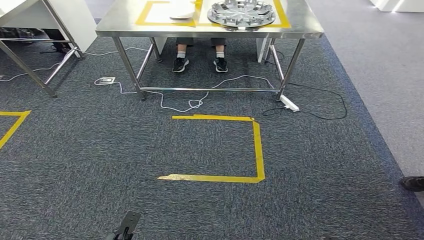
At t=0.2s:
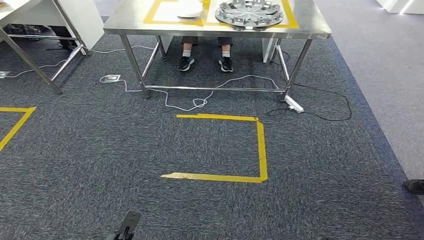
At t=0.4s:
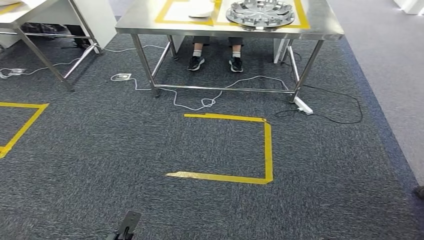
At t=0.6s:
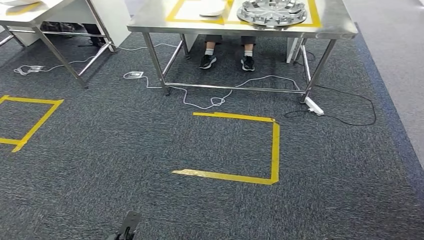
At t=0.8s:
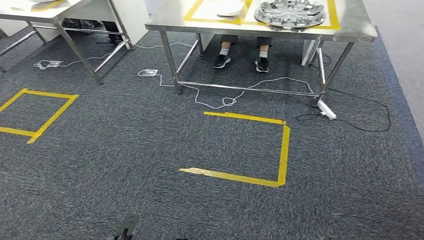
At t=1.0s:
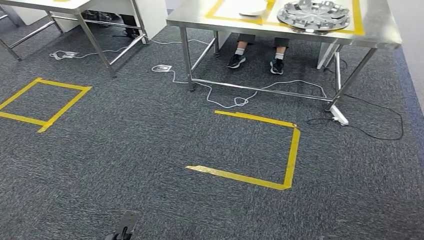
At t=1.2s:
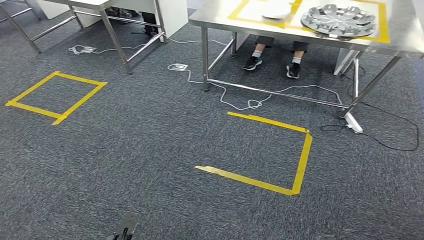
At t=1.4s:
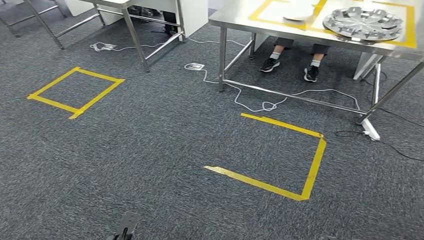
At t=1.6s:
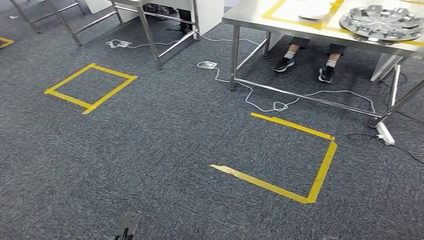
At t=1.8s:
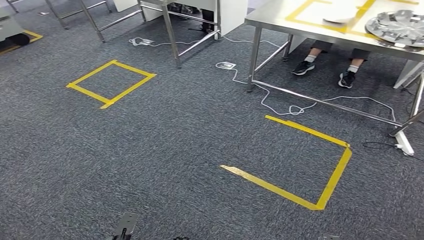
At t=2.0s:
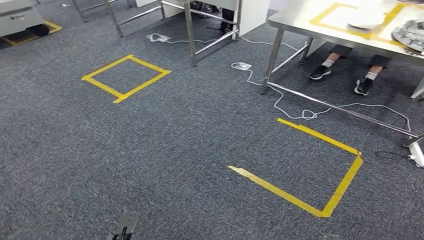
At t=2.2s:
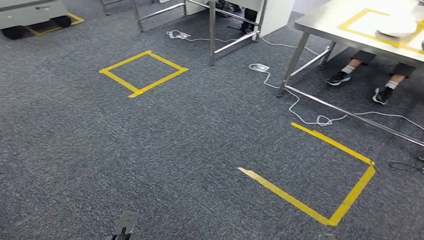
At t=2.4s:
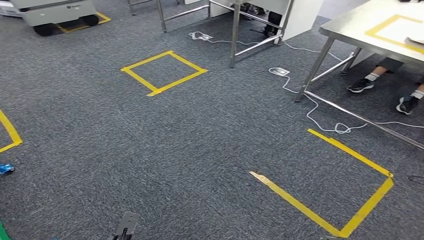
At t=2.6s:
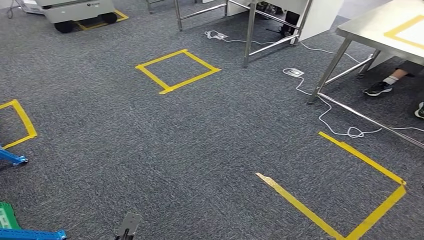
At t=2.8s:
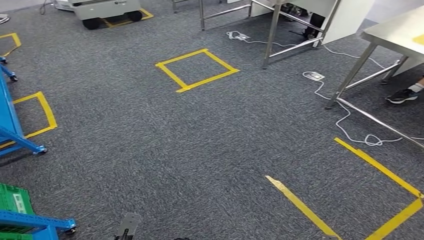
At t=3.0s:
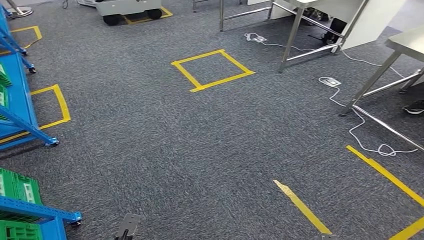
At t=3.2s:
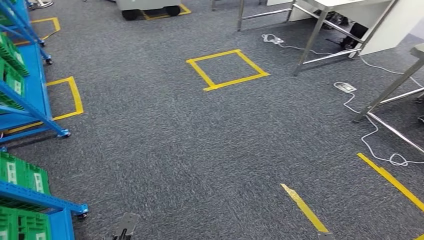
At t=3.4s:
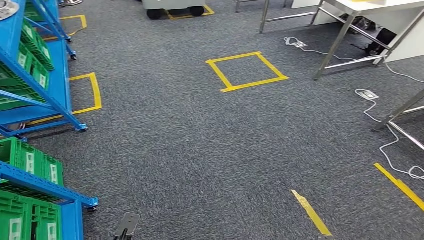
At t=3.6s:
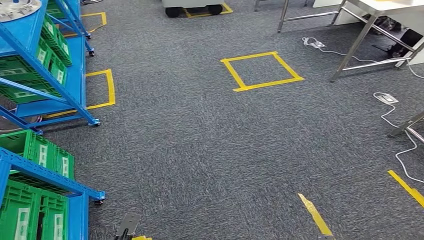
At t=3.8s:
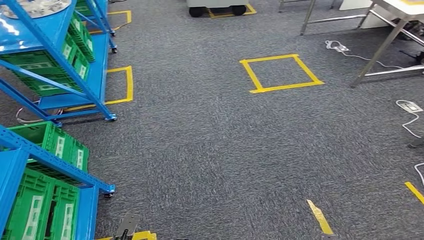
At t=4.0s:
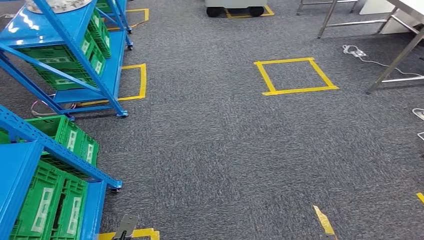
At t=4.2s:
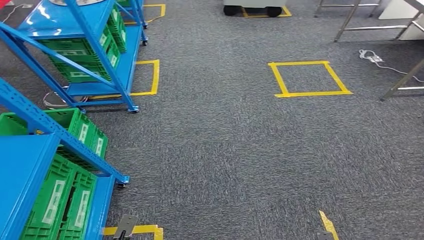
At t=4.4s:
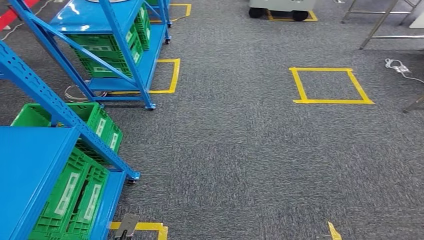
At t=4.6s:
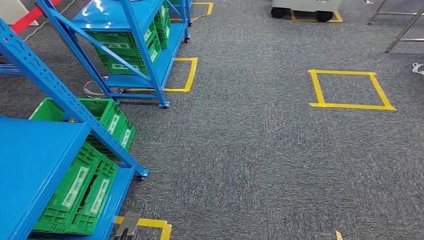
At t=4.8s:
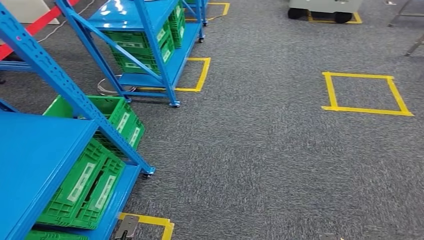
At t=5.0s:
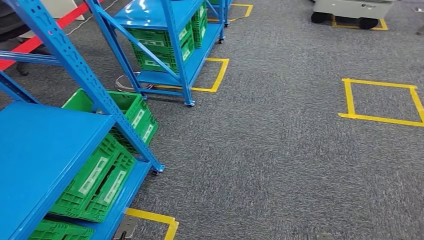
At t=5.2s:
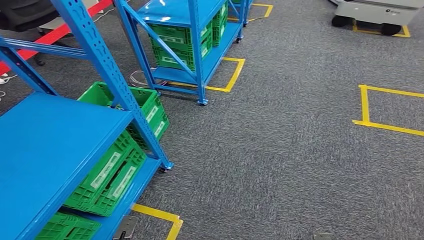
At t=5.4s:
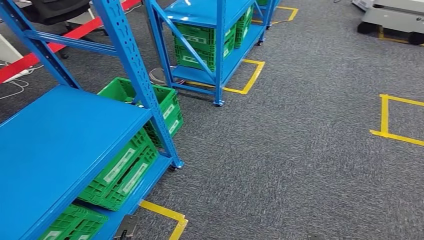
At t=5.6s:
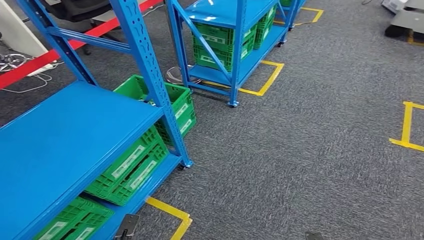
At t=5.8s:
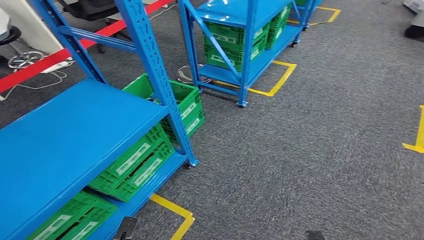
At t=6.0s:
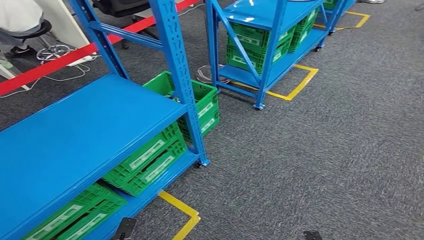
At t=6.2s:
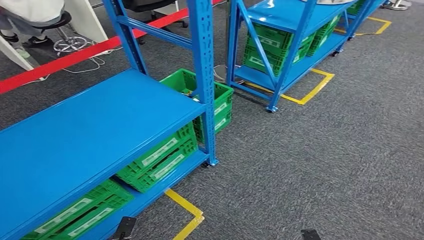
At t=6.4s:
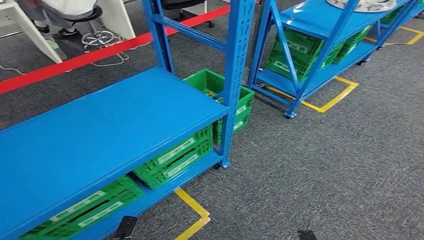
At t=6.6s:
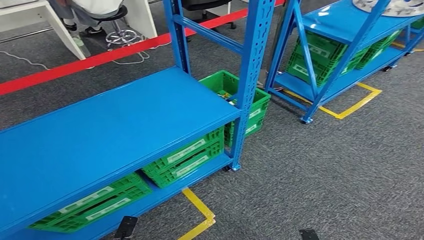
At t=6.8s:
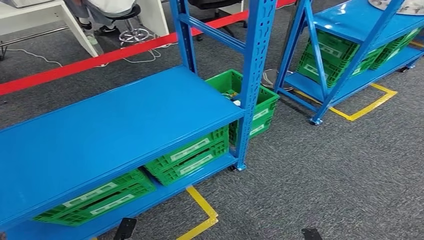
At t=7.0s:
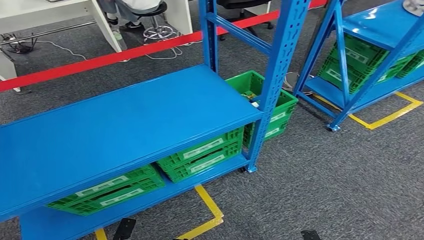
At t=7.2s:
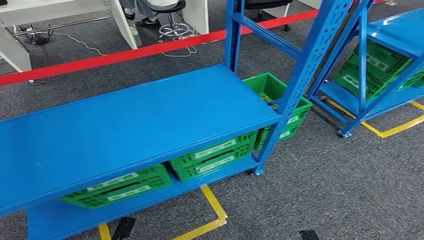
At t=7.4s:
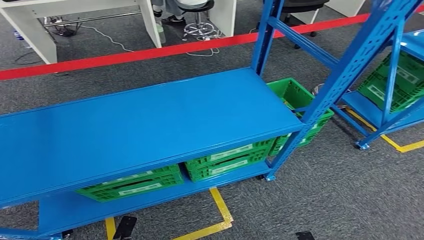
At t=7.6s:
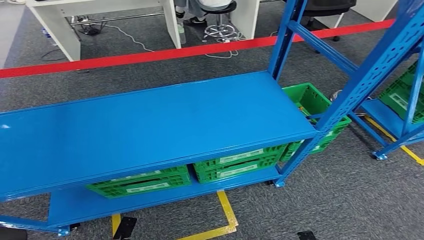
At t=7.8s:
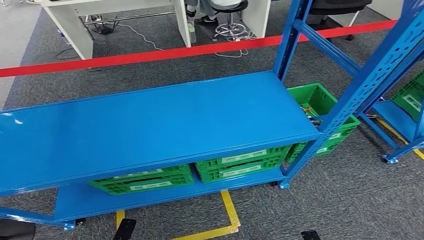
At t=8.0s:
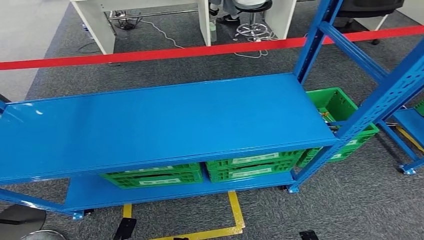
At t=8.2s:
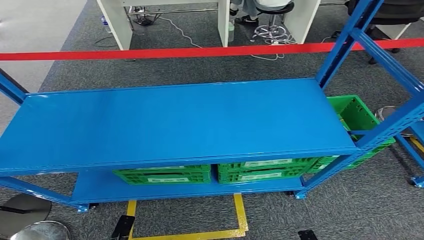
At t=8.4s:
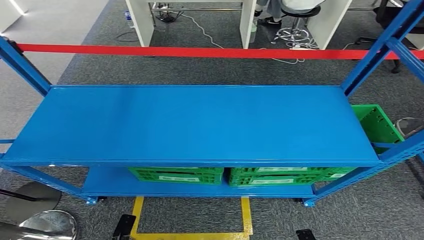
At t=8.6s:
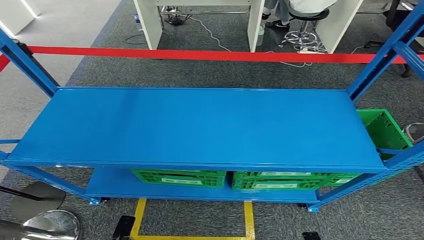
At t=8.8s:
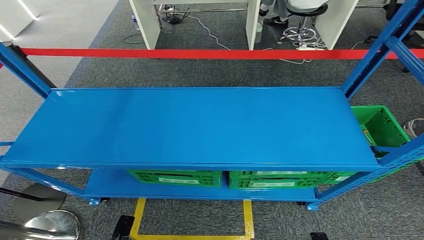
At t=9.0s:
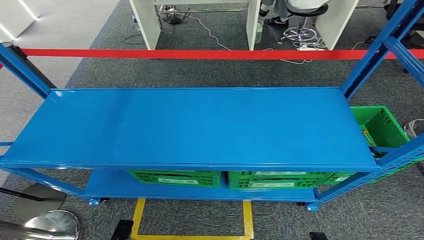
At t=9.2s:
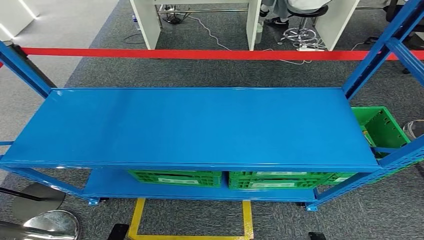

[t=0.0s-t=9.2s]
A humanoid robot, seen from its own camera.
Step, t=0.0s to t=9.2s: Move to the initial position at the workbench.
